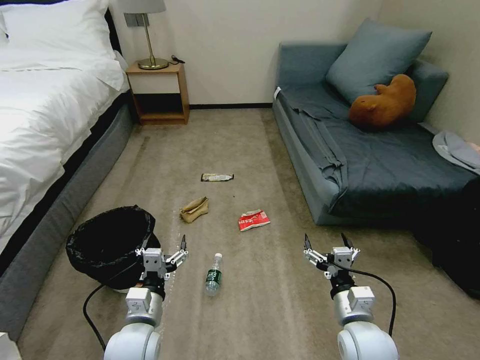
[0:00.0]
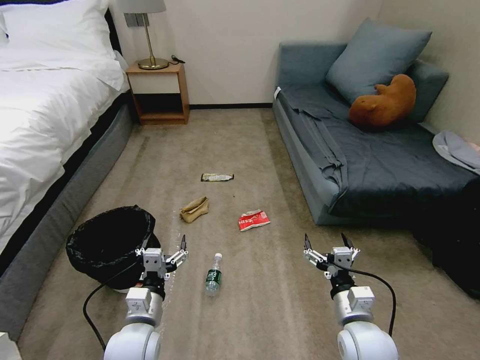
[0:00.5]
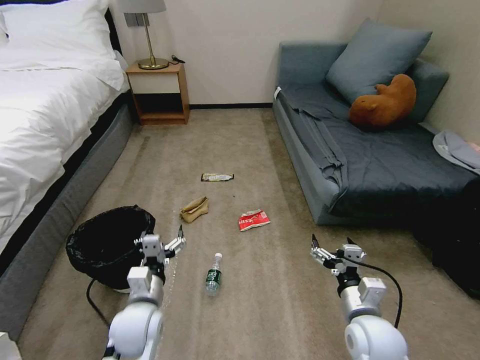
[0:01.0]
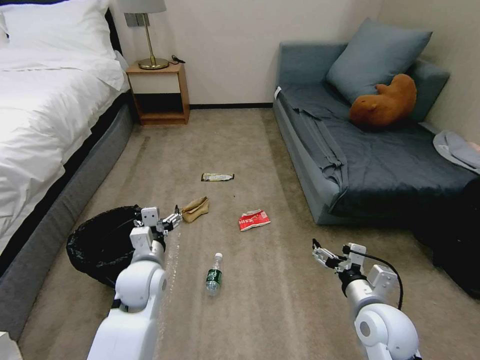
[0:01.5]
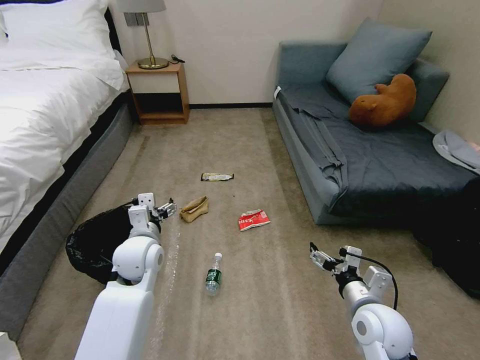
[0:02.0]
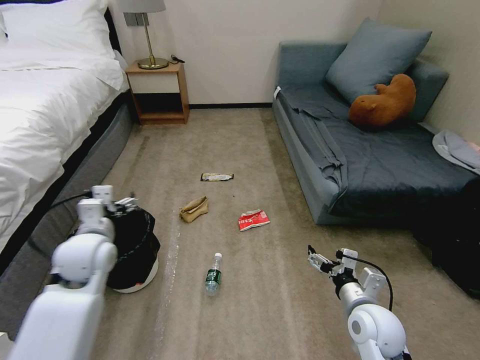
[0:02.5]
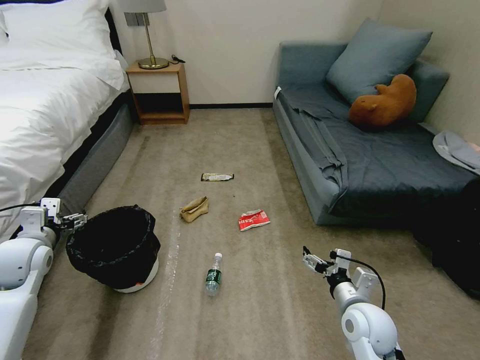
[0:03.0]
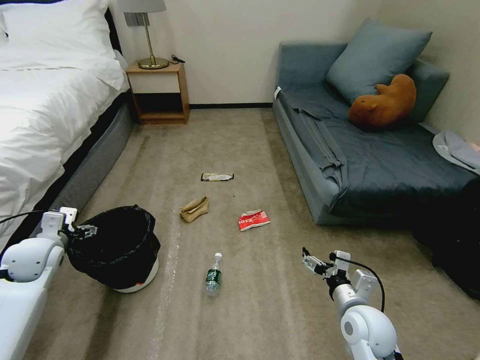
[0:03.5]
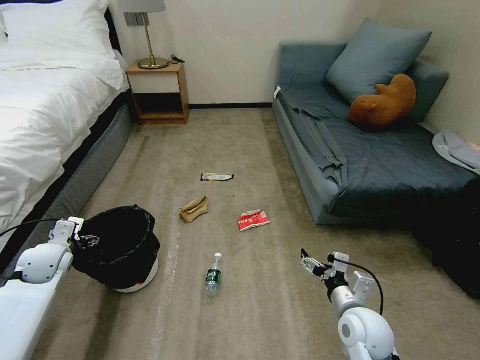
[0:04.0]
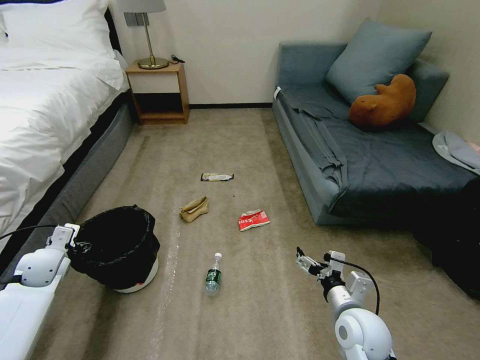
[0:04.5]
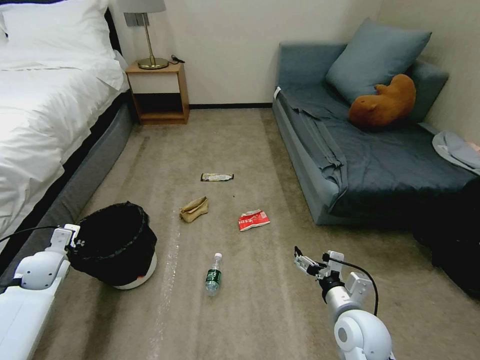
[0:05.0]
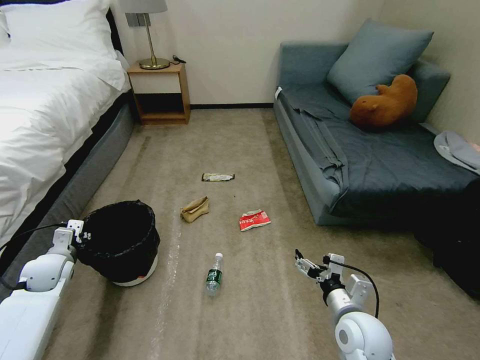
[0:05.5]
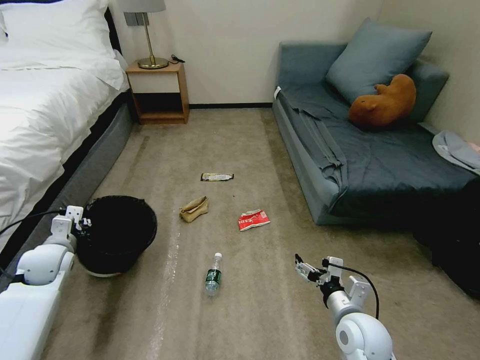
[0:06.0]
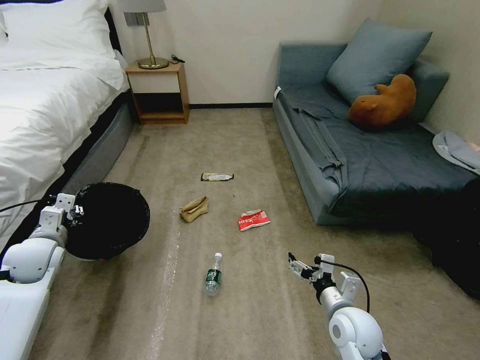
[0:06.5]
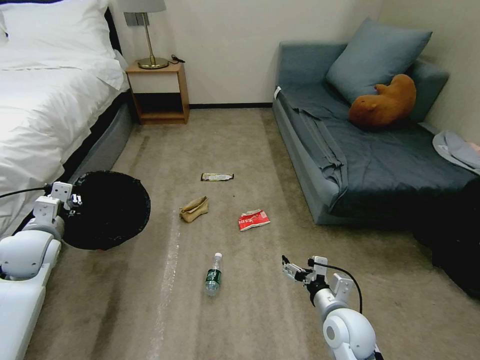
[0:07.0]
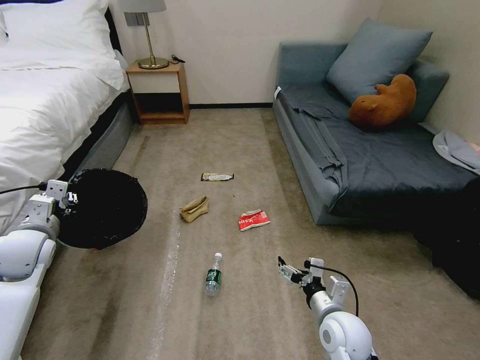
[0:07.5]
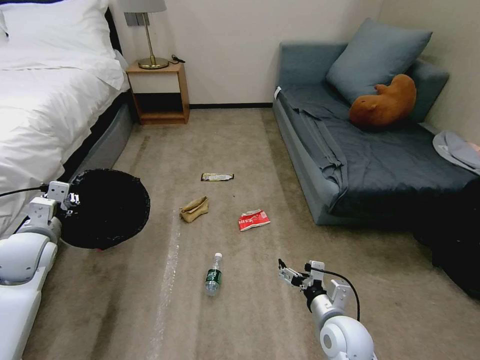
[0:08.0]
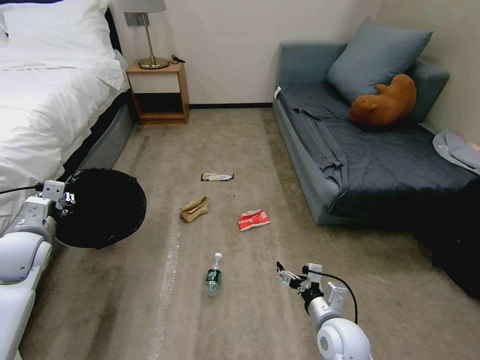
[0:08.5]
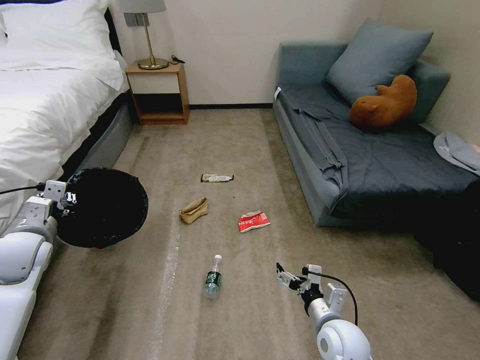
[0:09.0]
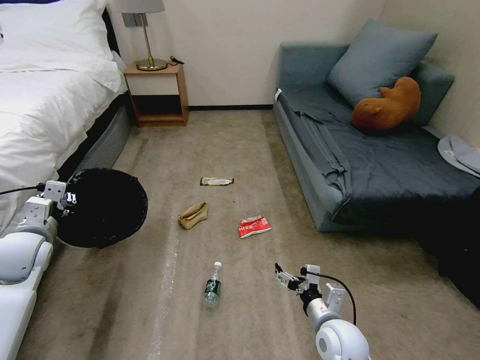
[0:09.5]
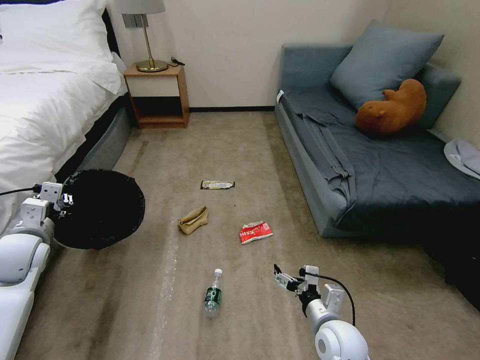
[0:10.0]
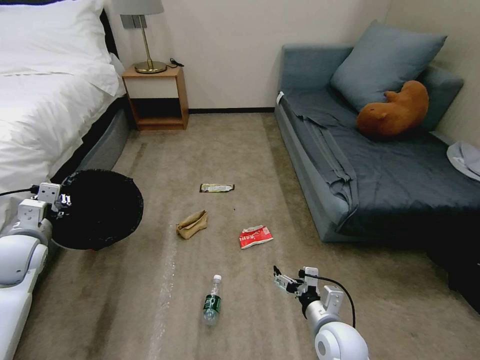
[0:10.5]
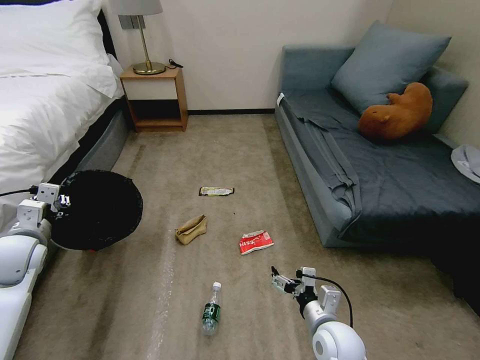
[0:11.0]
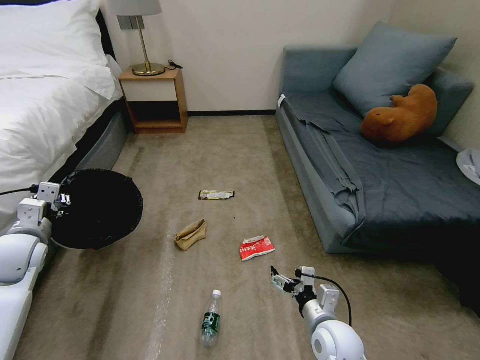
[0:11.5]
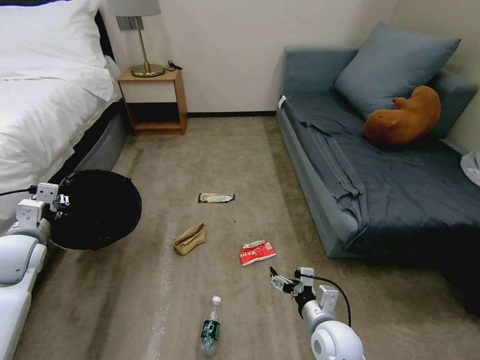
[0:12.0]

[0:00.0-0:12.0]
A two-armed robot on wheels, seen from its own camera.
Task of the whole recording: Pick up the trash bin, then pick up the garbage on the floor and place it into the trash bin.
0:02.0 to 0:04.0: The left gripper travels to the left by about 25 cm.
0:04.0 to 0:06.0: The left gripper closes its fingers.
0:06.0 to 0:08.0: The left gripper heads upward, covering some 10 cm.
0:08.0 to 0:10.0: The two grippers keep their place.

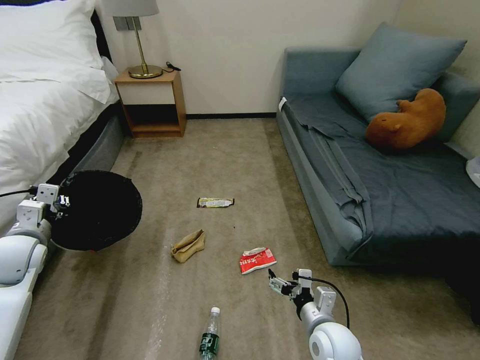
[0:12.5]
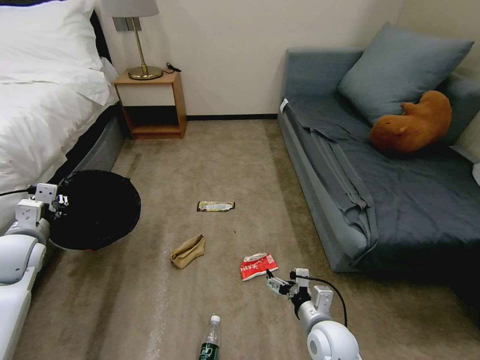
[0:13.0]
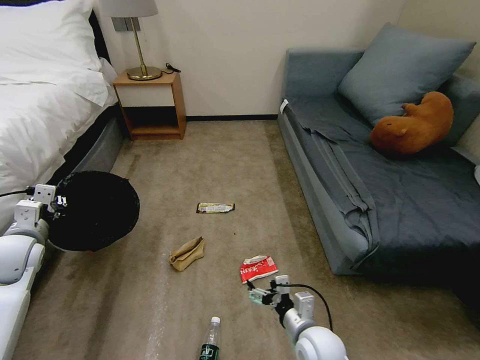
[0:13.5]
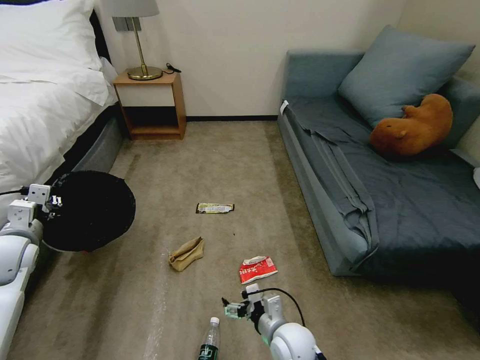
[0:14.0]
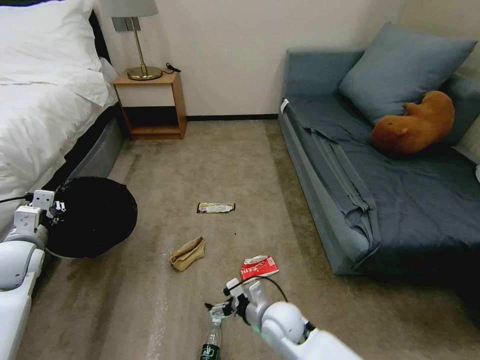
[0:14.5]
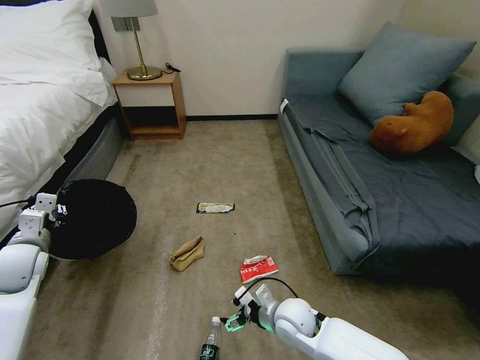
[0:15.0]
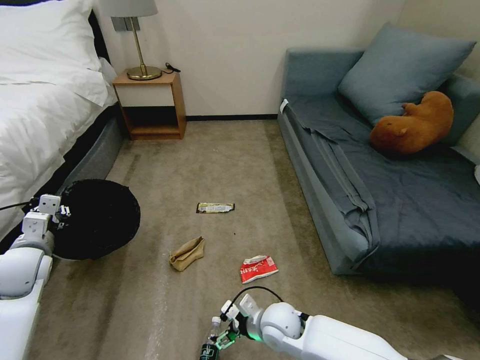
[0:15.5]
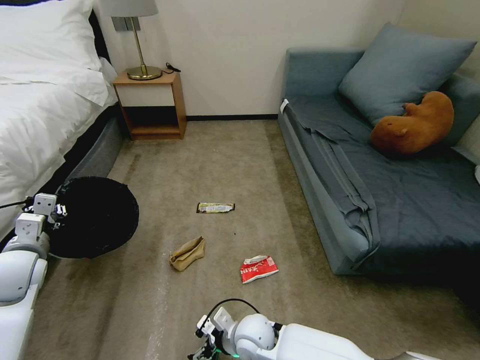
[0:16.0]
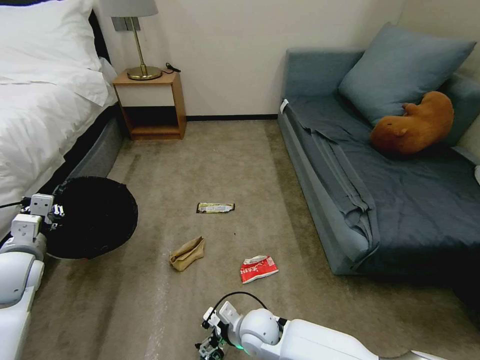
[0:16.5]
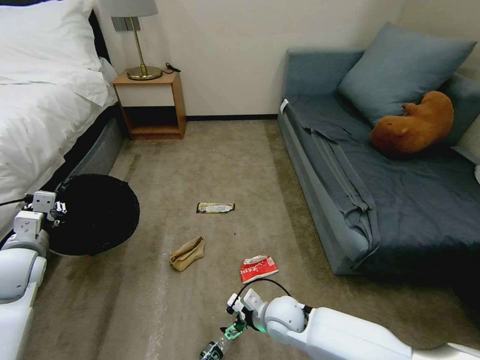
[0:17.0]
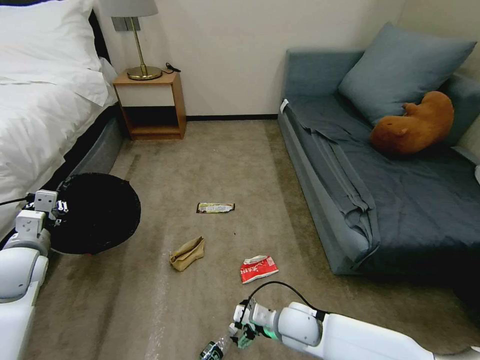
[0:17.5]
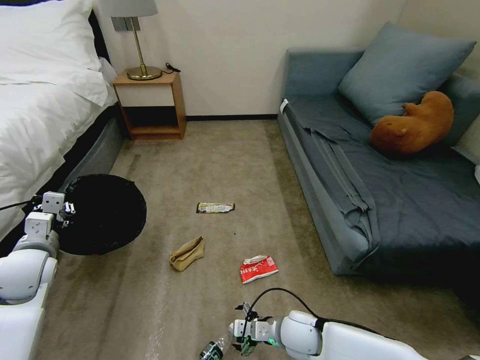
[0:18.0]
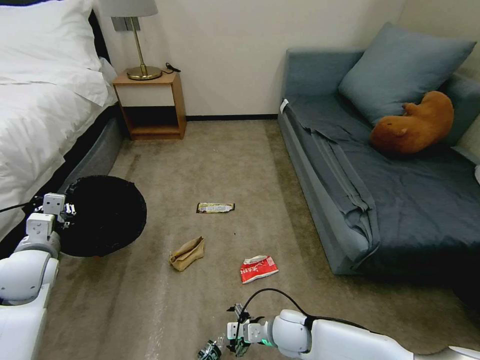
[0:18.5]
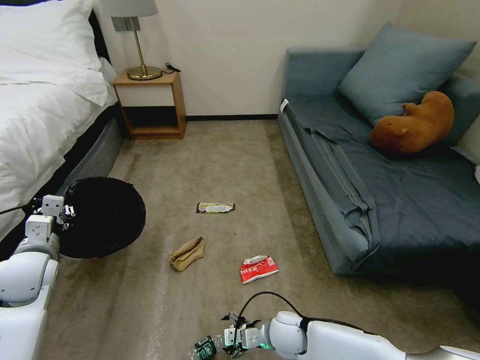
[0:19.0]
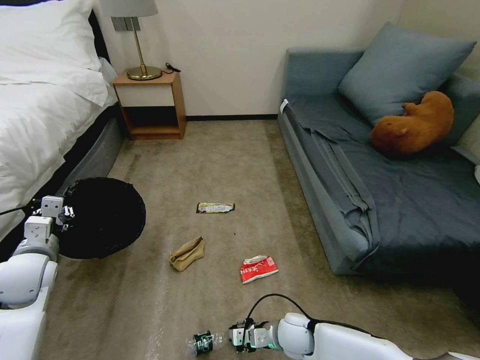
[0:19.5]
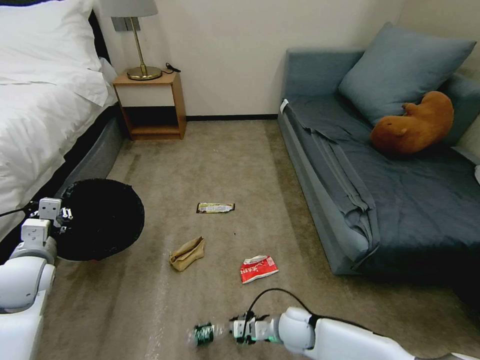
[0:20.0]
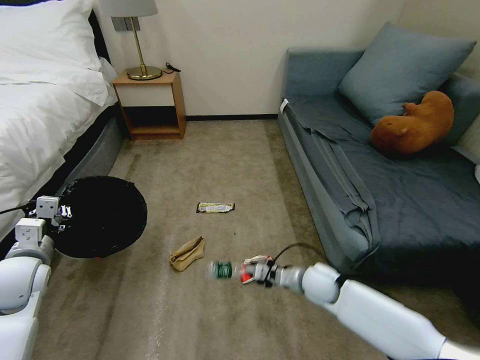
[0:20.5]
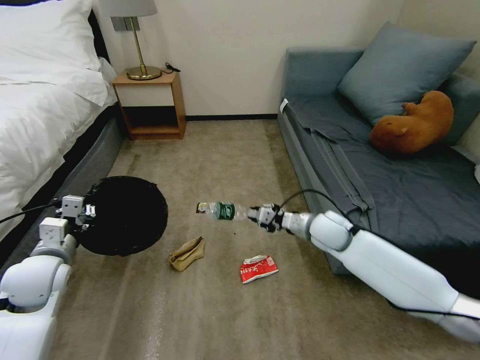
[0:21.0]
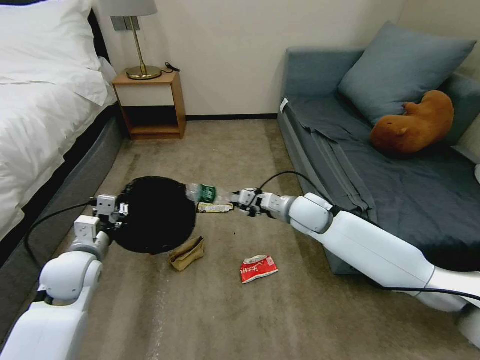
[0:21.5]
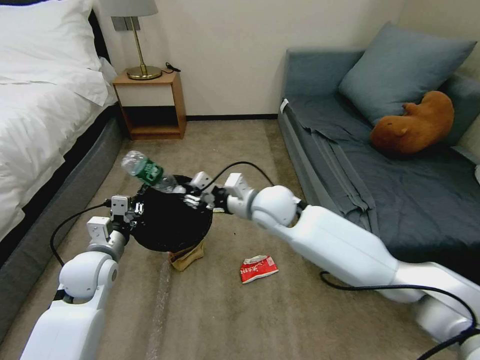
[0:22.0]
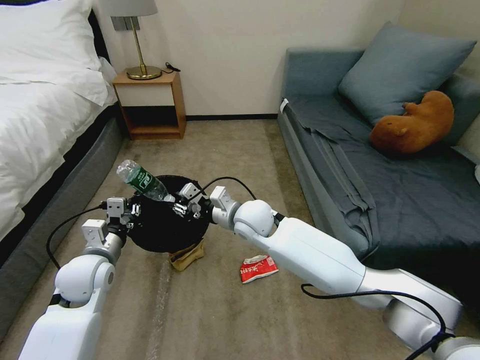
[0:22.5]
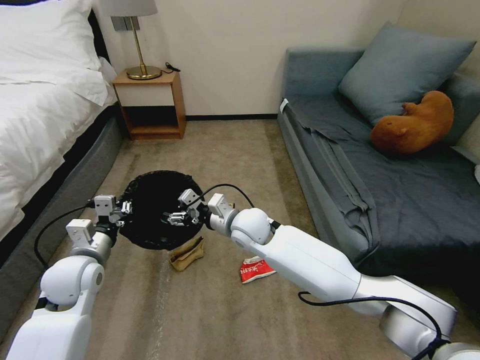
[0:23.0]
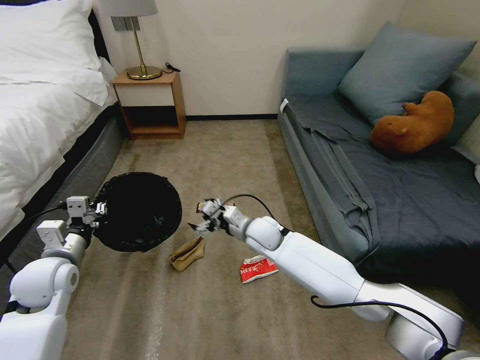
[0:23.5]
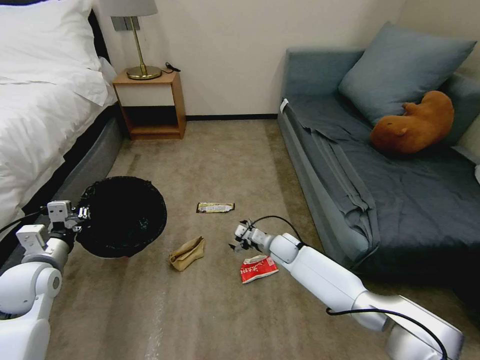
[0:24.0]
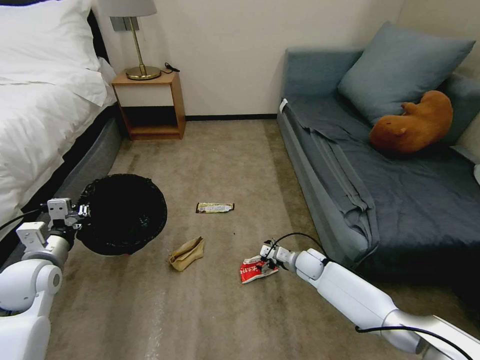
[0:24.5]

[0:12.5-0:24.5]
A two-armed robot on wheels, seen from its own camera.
Task of the whole recording: Pick up the trash bin, then pick up the garbage on the floor and place it into the trash bin.
0:12.5 to 0:14.5: The right gripper travels to the left and forward by about 10 cm.
0:14.5 to 0:16.5: The right gripper is displaced to the left by about 5 cm.
0:16.5 to 0:18.5: The right gripper moves to the right, some 10 cm.
0:18.5 to 0:20.5: The right gripper moves forward and to the right, some 10 cm, and closes its fingers.
0:20.5 to 0:22.5: The right gripper heads upward, to the left and forward, covering about 30 cm. Meanwhile the left gripper moves to the right, some 10 cm.
0:22.5 to 0:24.5: The left gripper goes approximately 10 cm to the left, while the right gripper heads downward and to the right, covering about 30 cm, and opens.

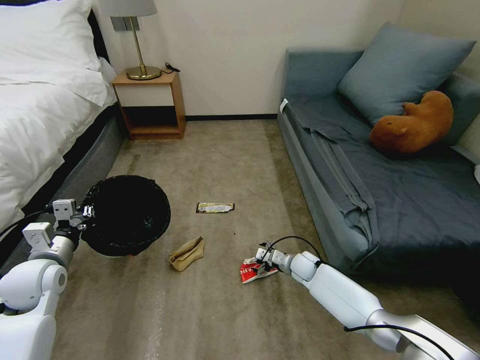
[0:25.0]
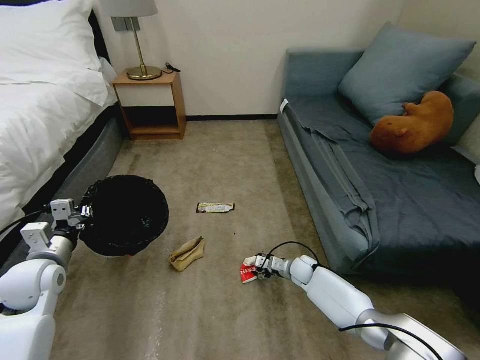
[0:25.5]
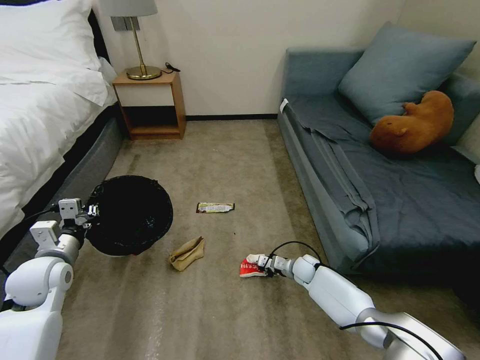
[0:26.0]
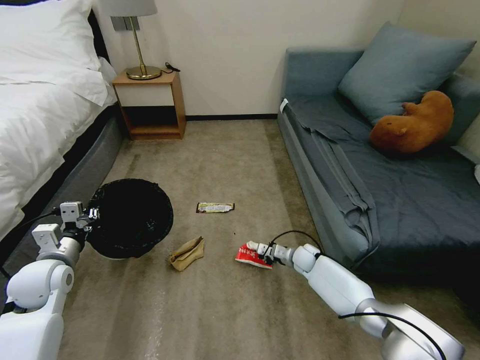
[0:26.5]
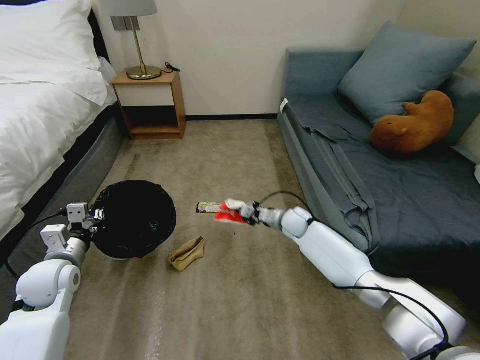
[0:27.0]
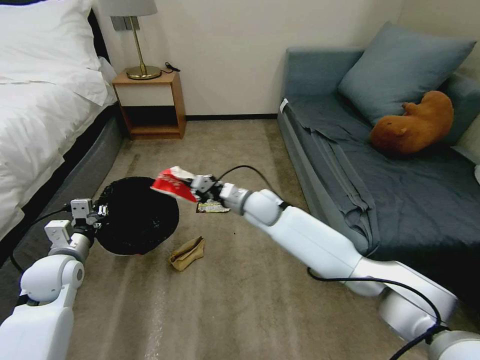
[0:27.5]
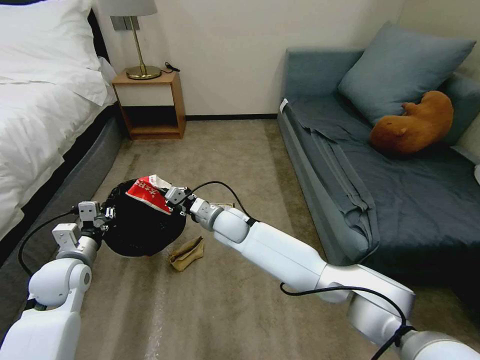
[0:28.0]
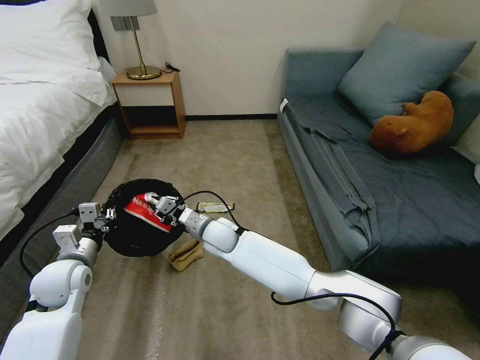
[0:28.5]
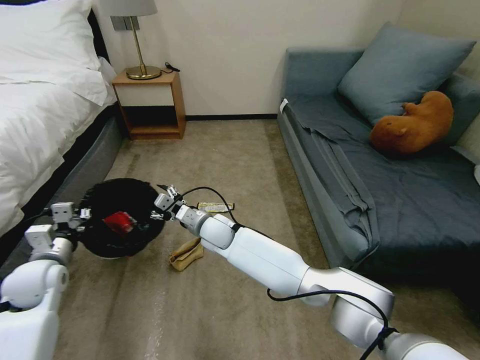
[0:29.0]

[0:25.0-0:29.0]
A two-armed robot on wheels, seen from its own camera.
Task of the whole recording: Pick up the trash bin, then pick up the garbage on the floor and place it into the trash bin.
0:25.0 to 0:27.0: The right gripper travels upward and forward by about 15 cm, and closes its fingers.
0:27.0 to 0:29.0: The right gripper heads to the left, covering about 25 cm, and opens its fingers.
